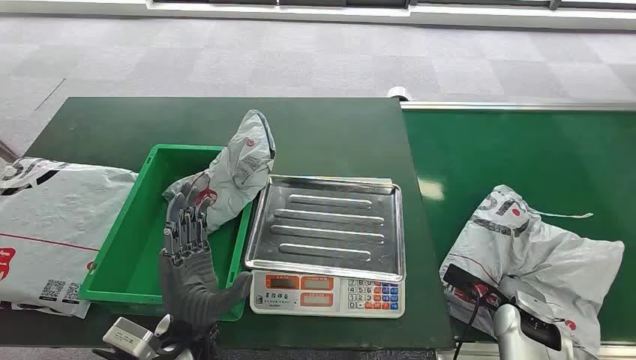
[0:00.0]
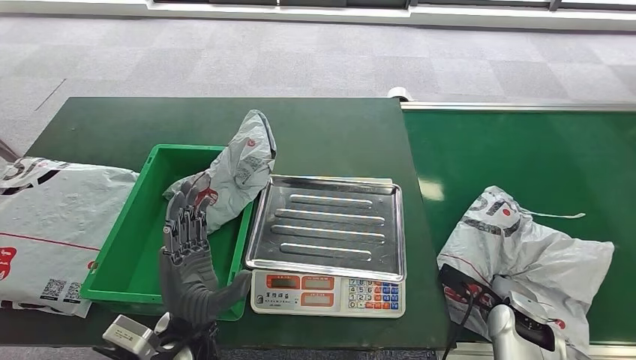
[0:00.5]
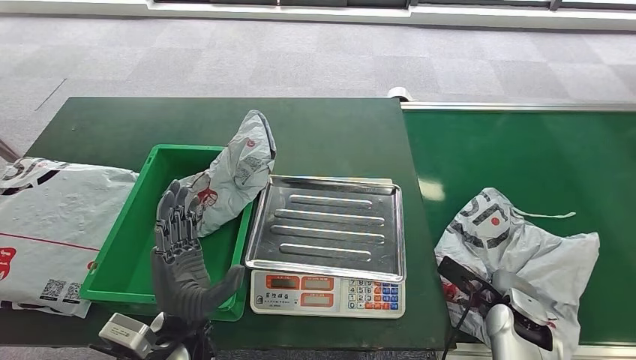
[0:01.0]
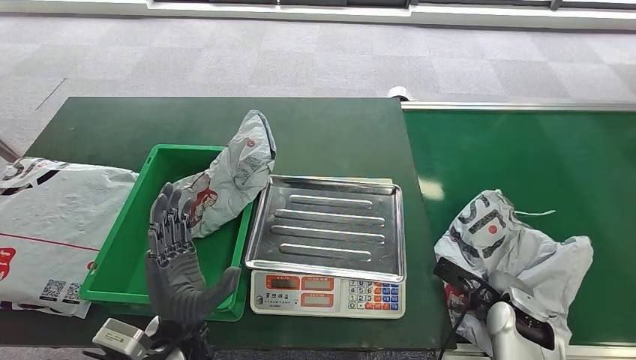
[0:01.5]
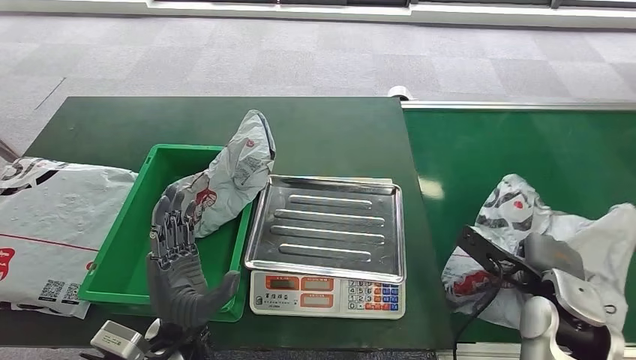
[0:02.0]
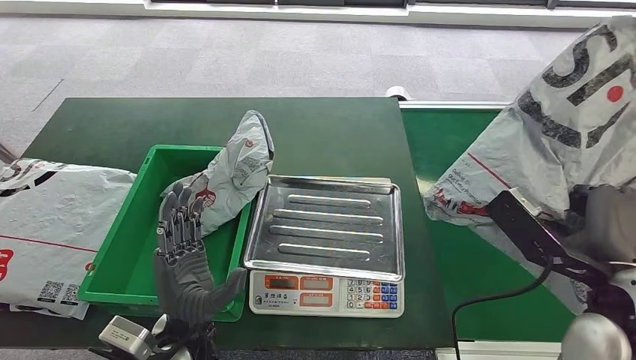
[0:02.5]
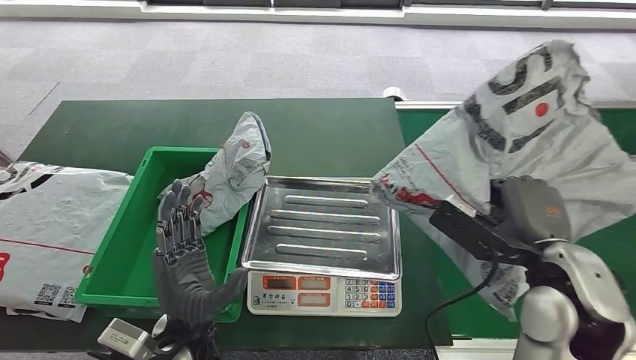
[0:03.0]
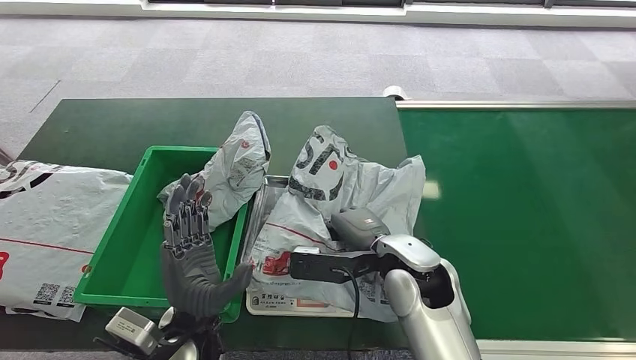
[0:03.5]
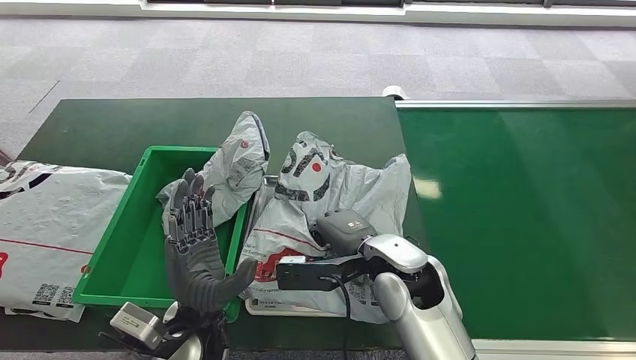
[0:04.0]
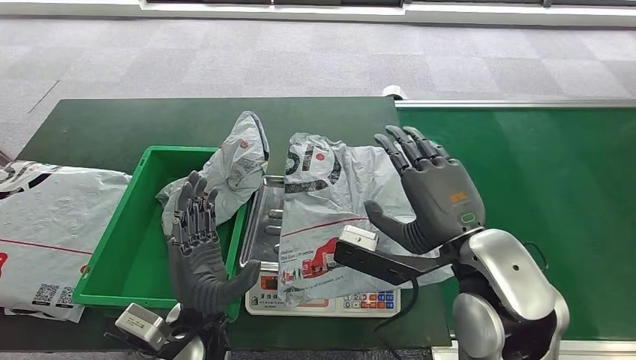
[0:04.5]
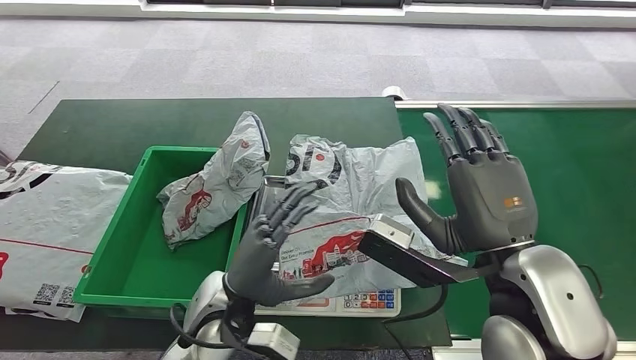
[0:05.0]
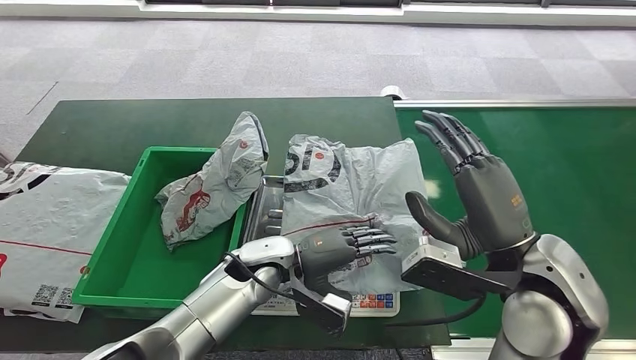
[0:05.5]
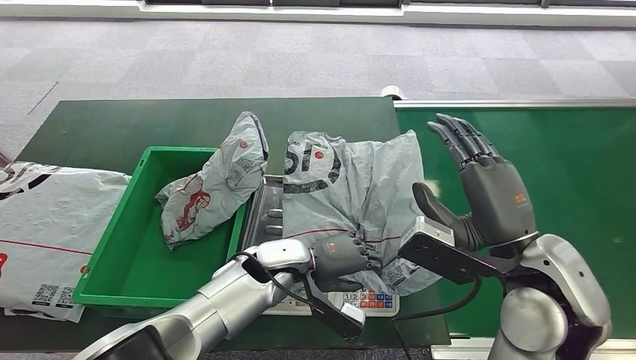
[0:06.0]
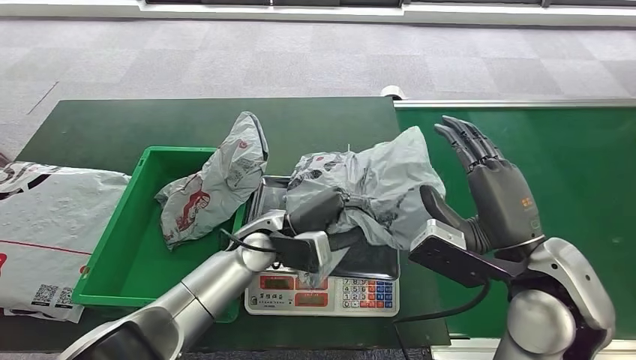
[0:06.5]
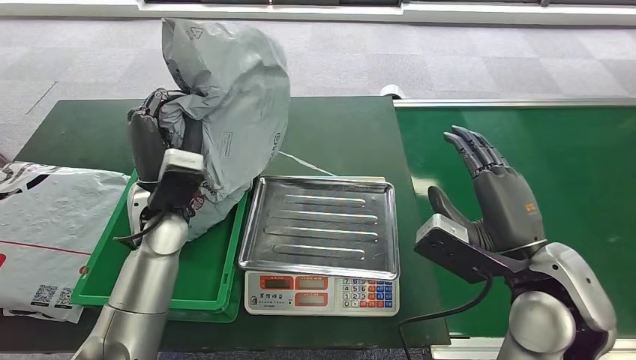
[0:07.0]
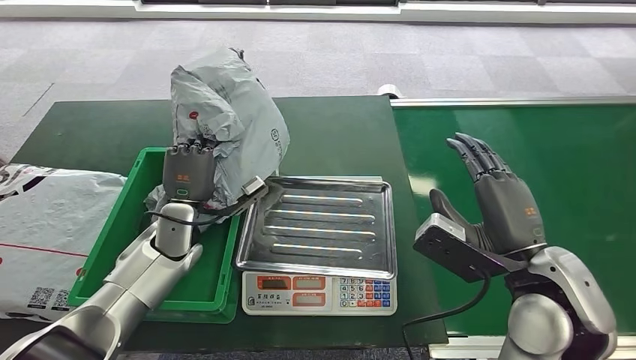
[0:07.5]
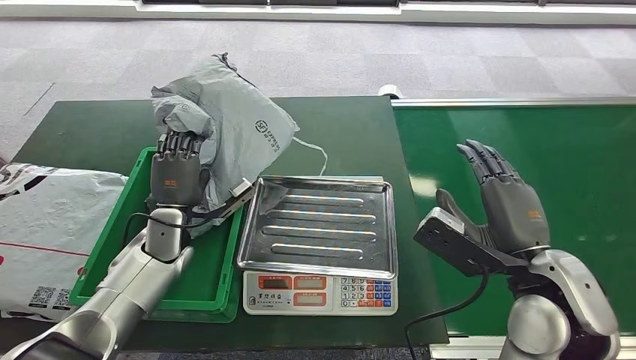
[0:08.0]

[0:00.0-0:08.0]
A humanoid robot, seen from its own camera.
Step, 0:00.0 to 0:02.5: Pick up the package from the conveyor belt.
Step, 0:03.0 to 0:04.5: Place the package onto the inbound machine.
Step, 0:05.0 to 0:07.0: Pick up the package from the inbound machine.
Step, 0:07.5 to 0:08.0: Place the package into the parcel locker.
